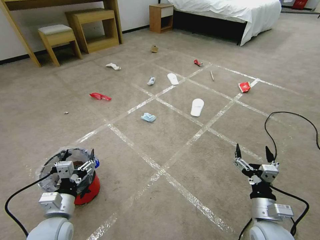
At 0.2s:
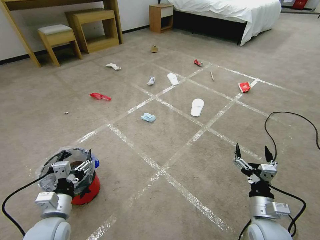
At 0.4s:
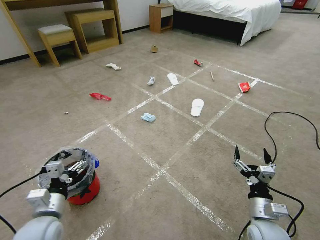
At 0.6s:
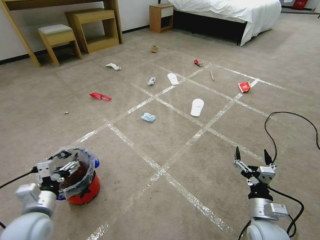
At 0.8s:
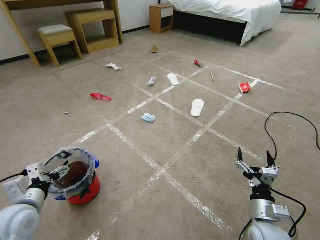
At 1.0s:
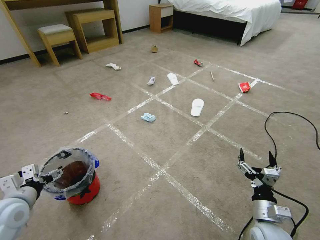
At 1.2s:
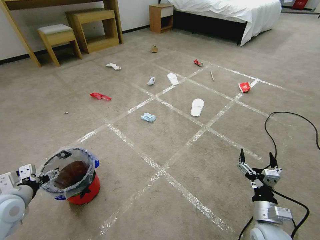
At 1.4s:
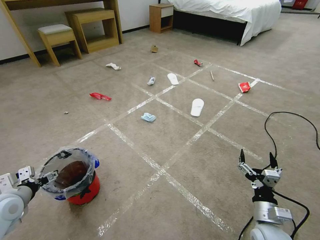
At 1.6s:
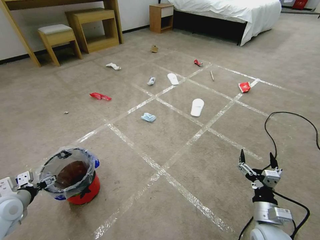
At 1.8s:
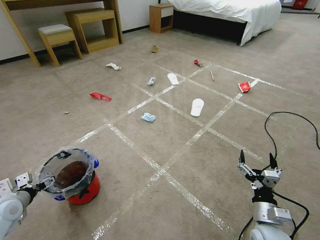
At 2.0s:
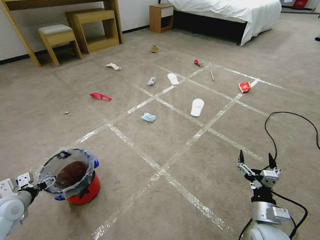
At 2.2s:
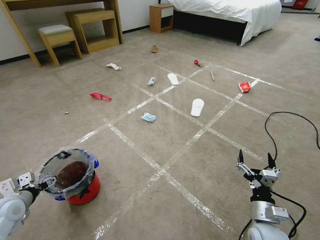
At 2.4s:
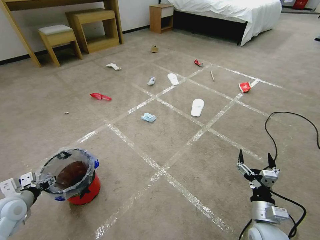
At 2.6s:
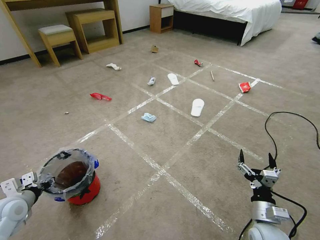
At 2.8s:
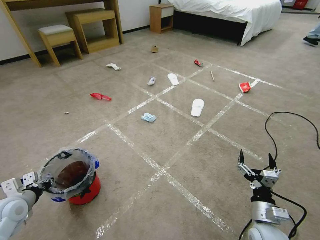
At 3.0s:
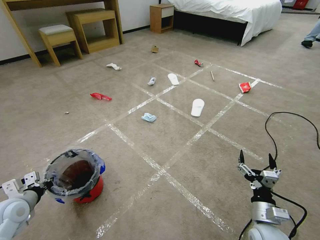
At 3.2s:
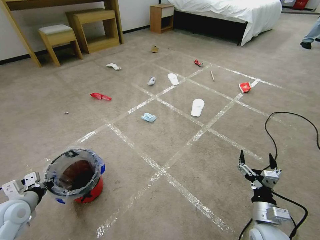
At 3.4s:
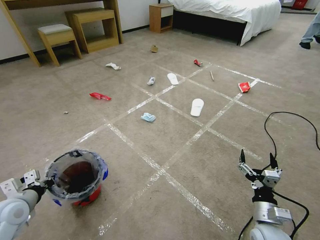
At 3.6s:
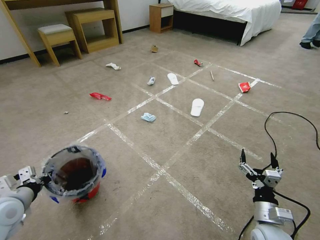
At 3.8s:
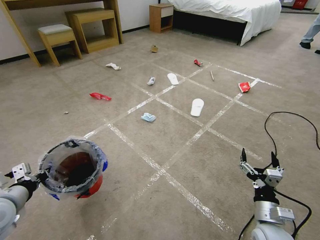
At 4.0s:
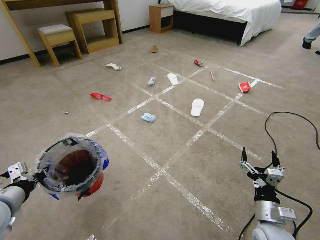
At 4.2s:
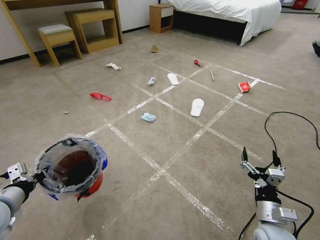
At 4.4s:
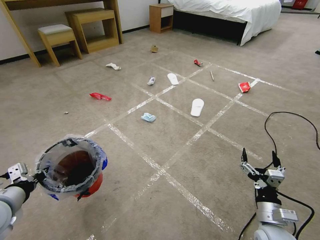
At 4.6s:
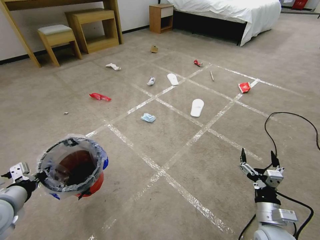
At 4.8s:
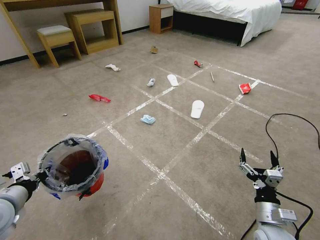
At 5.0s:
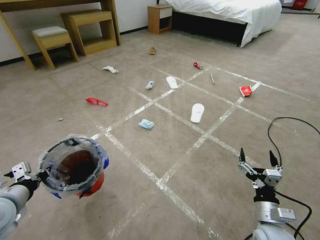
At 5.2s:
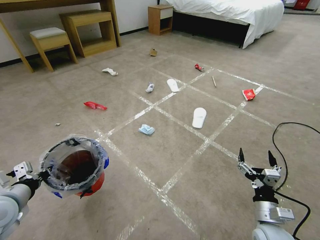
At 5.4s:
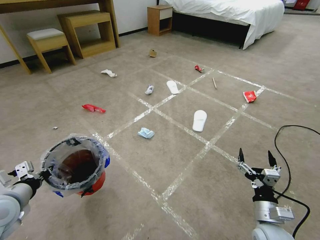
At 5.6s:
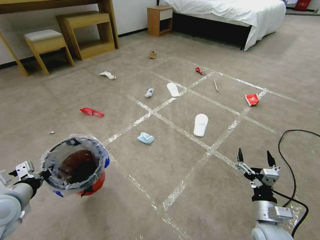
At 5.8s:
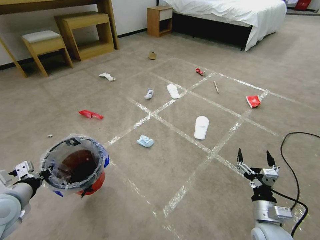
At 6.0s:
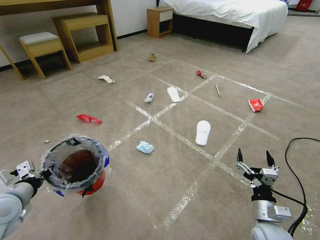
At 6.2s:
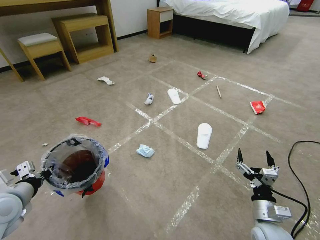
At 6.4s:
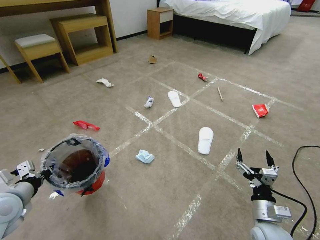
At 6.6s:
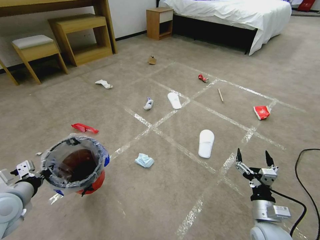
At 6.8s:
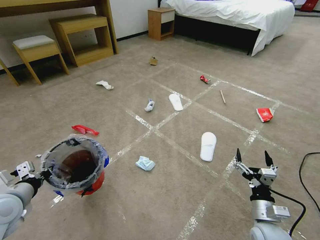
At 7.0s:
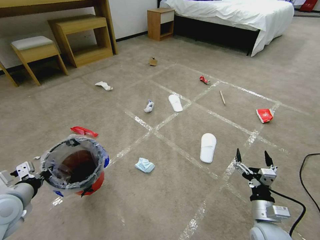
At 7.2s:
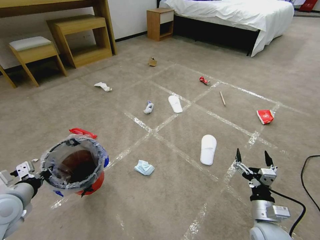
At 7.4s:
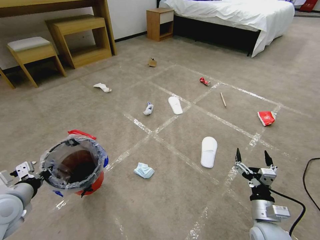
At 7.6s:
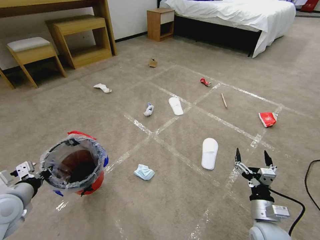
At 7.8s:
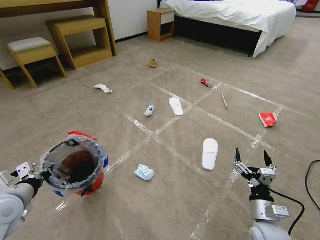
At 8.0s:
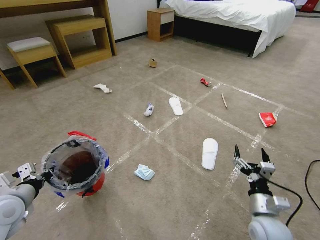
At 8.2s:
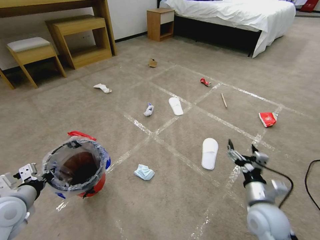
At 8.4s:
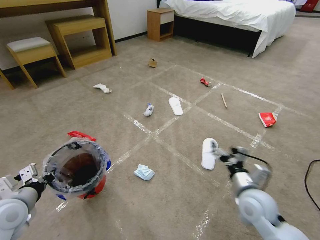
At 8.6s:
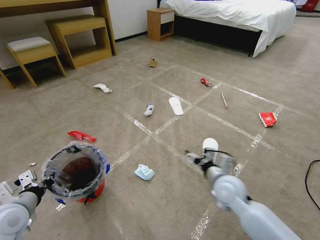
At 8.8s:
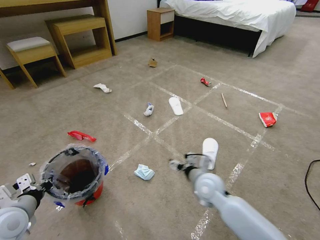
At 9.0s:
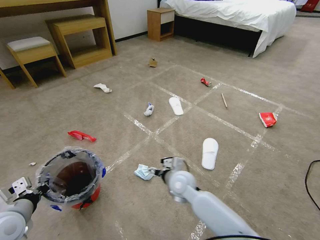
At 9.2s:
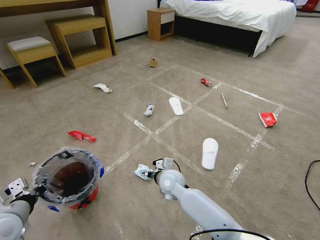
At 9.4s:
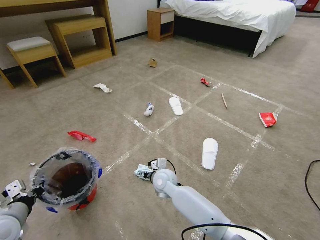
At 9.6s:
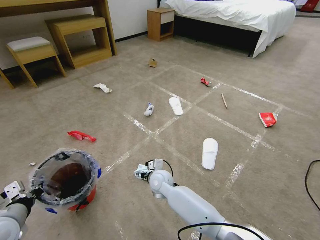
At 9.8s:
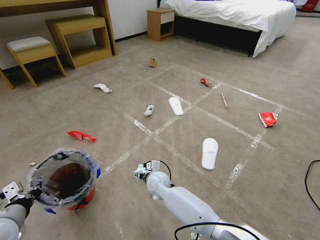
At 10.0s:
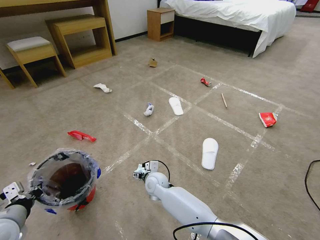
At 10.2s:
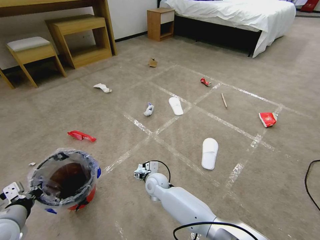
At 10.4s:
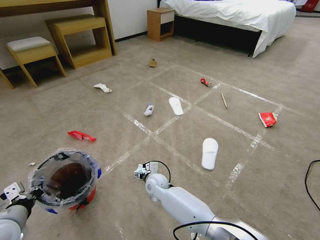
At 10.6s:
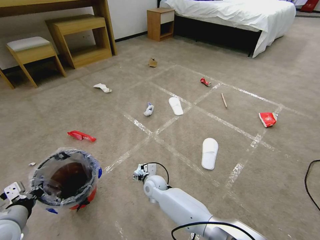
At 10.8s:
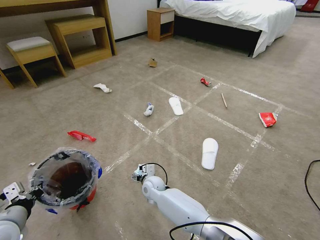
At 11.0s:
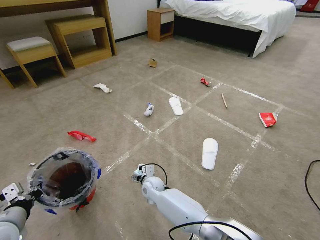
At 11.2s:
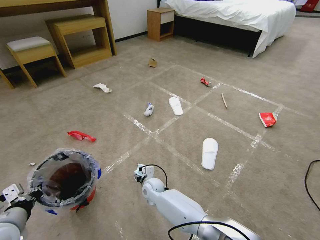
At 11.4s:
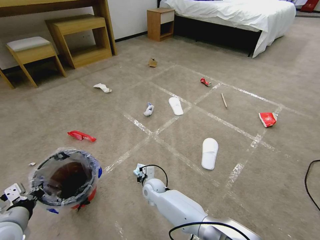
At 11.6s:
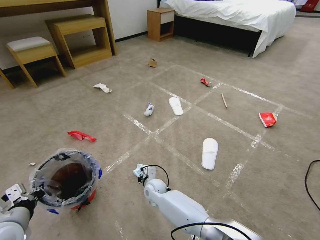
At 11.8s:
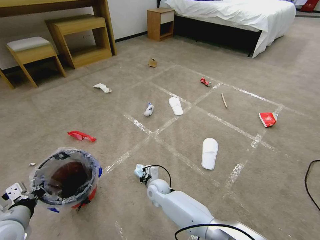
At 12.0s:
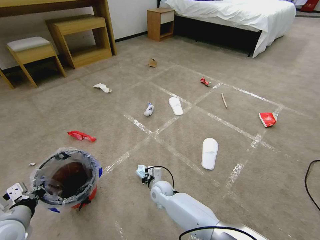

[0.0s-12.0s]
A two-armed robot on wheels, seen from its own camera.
Task of the whole recording: Pick up the trash bin and place the garbage on the floor into it.
1.6s to 3.0s: The left gripper closes up.
3.0s to 4.4s: The left gripper heads upward, covering roughly 10 cm.
6.0s to 7.6s: Neither gripper changes place.
7.6s to 9.0s: The right gripper heads to the left and forward, covering about 30 cm.
9.0s to 10.4s: The right gripper shifts approximately 15 cm to the left and downward.
10.4s to 12.0s: The right gripper closes.

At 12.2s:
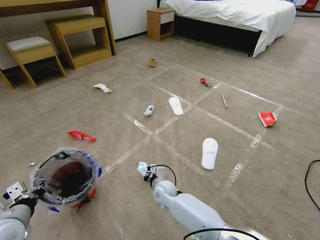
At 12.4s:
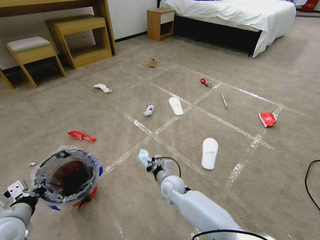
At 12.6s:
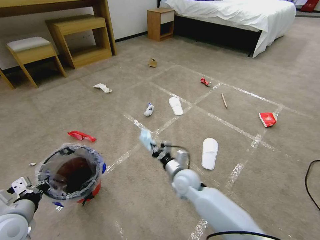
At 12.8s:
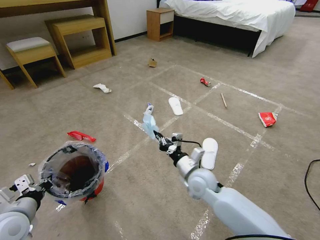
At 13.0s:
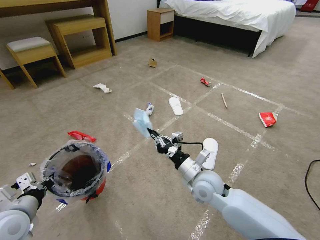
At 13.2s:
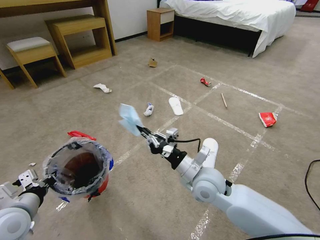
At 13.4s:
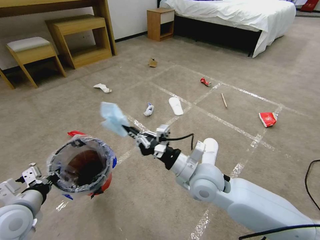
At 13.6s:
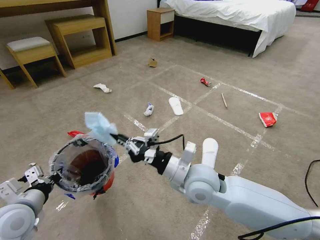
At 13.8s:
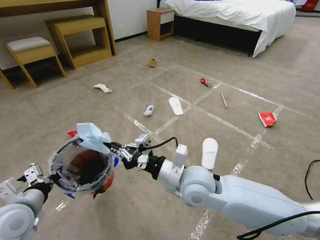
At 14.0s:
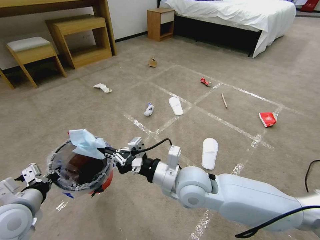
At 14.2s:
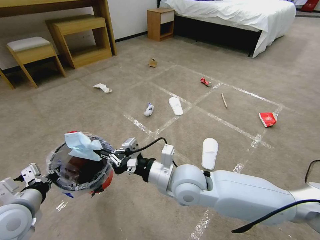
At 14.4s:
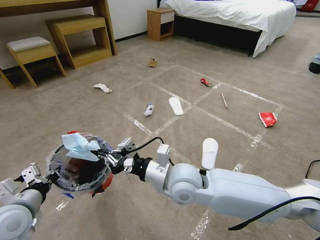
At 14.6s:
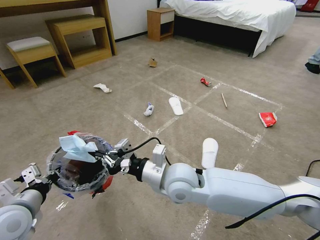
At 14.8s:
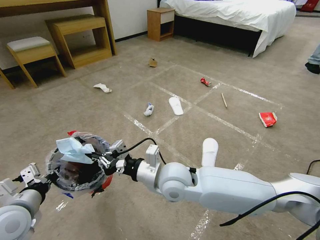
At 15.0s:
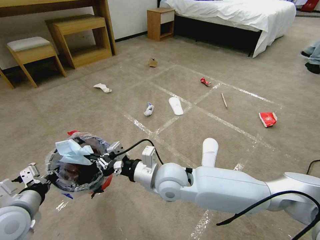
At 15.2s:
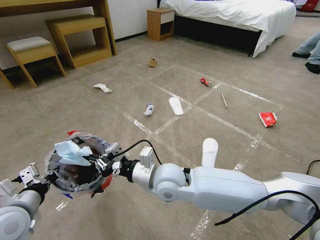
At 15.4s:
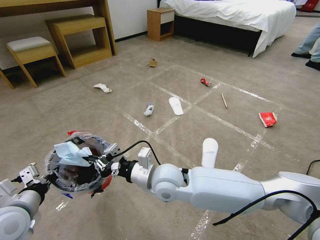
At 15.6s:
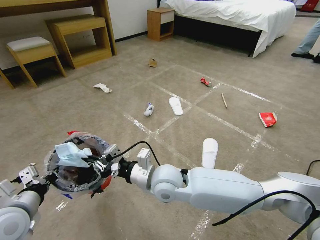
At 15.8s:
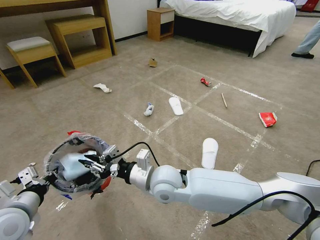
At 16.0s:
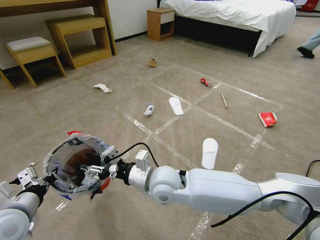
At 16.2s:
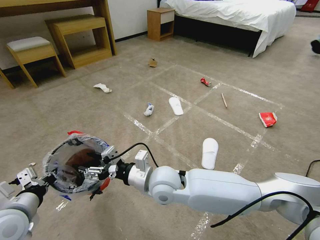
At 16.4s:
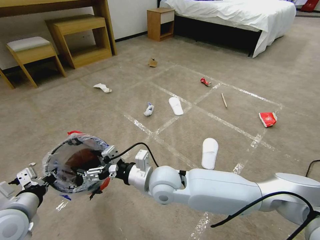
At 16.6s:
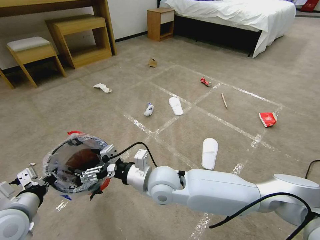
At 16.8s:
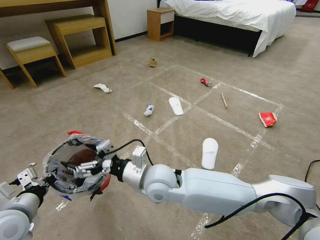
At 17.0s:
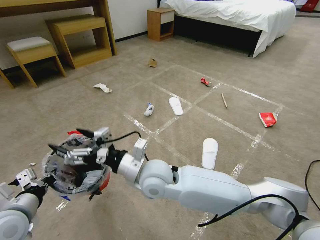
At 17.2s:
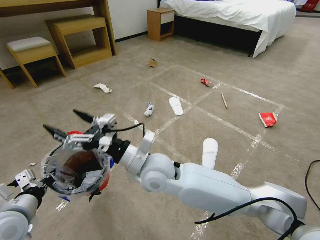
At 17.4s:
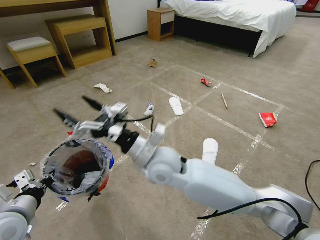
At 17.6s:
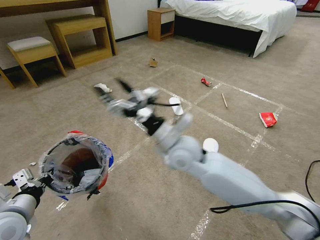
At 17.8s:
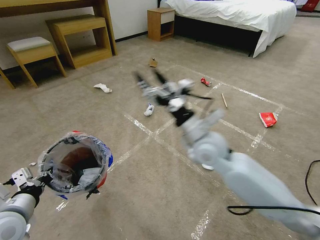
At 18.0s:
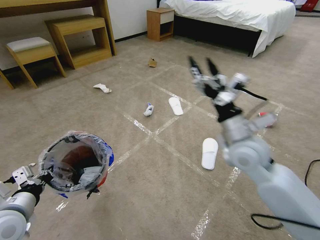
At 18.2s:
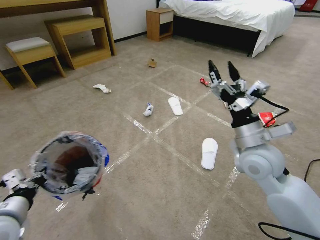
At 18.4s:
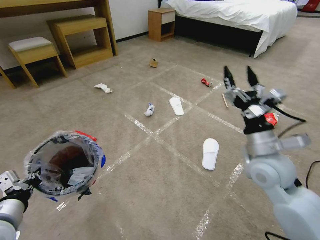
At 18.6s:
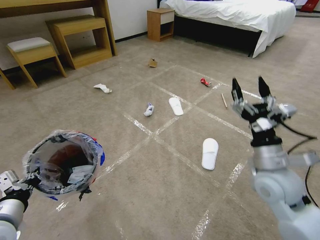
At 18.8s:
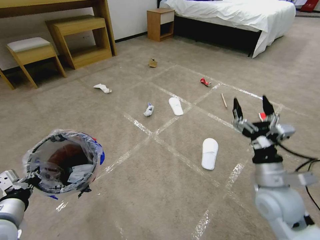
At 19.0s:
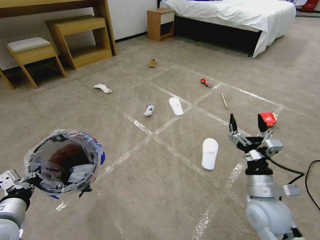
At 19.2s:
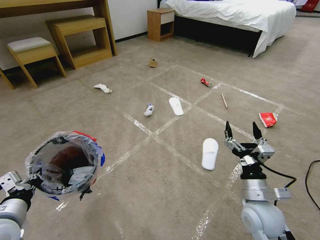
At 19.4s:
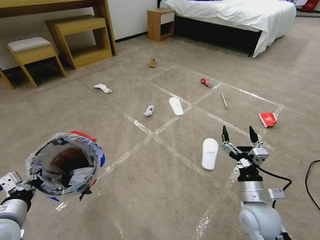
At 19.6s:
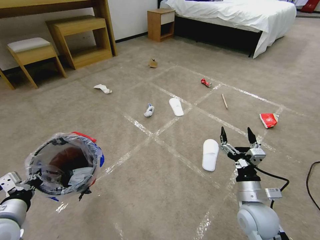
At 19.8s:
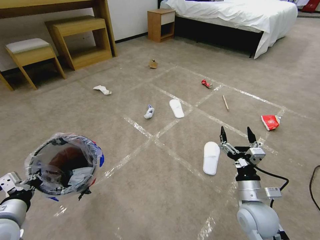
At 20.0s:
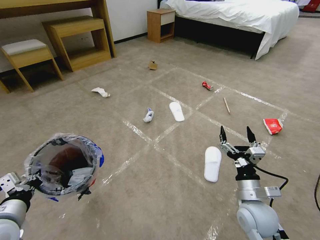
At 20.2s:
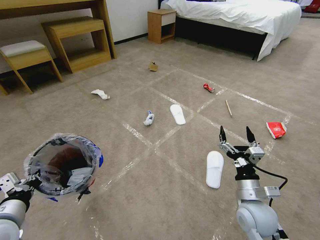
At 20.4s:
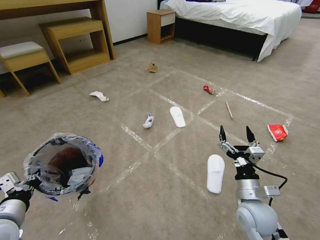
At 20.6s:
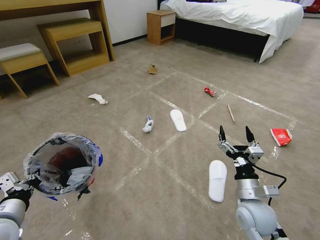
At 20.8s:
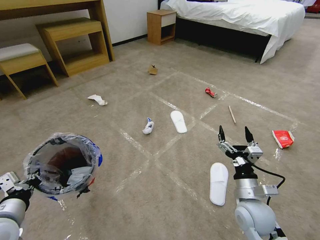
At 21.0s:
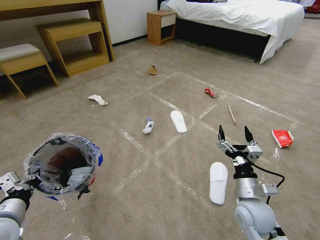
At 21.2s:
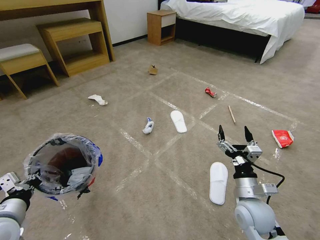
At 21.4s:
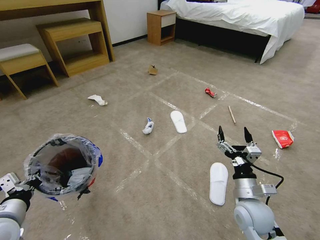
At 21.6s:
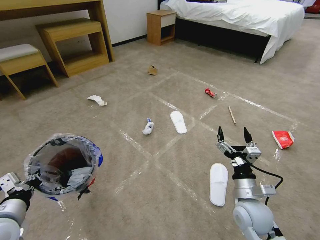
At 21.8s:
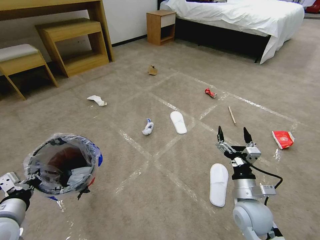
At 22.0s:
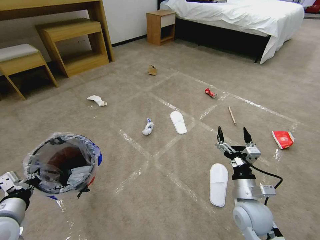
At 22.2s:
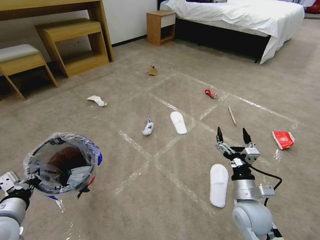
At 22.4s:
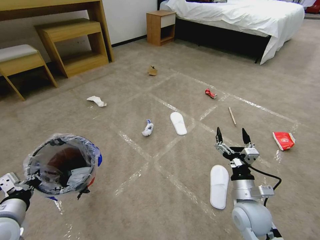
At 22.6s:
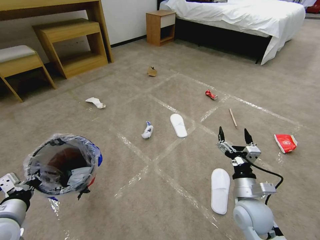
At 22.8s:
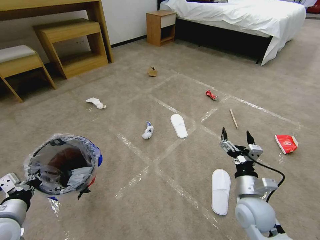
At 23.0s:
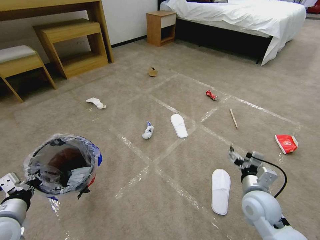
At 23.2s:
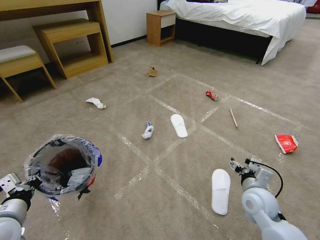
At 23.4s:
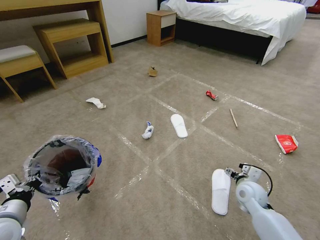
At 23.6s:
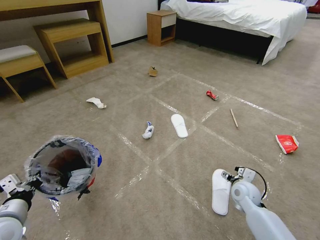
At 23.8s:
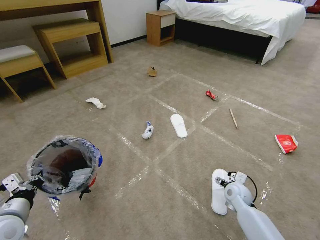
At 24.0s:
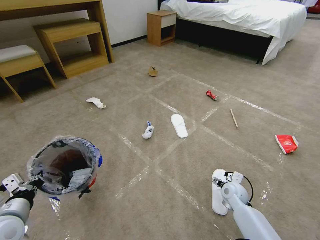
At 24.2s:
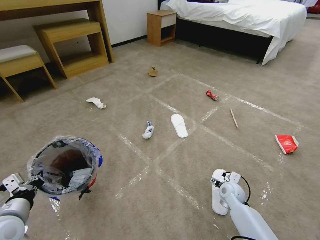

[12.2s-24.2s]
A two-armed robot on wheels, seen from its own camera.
Task of the whole recording: Pick up the trash bin and place the garbage on the floor into it.
12.2s to 13.8s: The left gripper changes place by approximately 5 cm. Meanwhile the right gripper travels upward by some 25 cm.
13.8s to 15.2s: The right gripper heads to the left, covering approximately 5 cm.
15.2s to 16.6s: The right gripper opens its fingers.
16.6s to 18.2s: The right gripper heads to the right, covering roughly 25 cm.
18.2s to 19.8s: The right gripper moves downward and backward, roughly 20 cm.
19.8s to 21.2s: Both grippers stay about where they are.
21.2s to 22.6s: Both grippers stay put.
22.6s to 24.2s: The right gripper moves downward and forward, roughly 20 cm.
